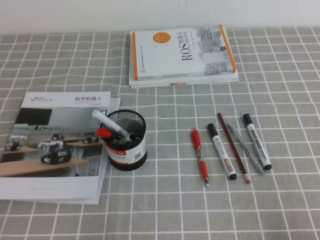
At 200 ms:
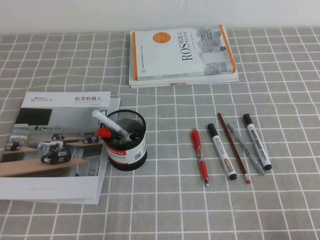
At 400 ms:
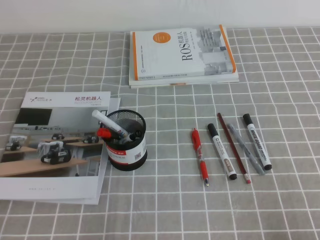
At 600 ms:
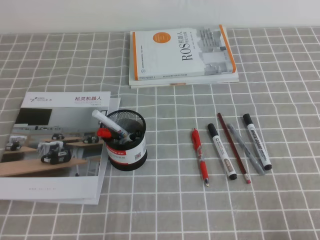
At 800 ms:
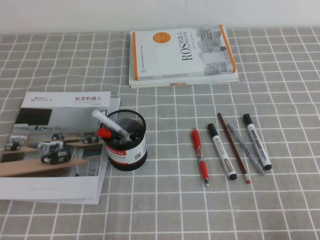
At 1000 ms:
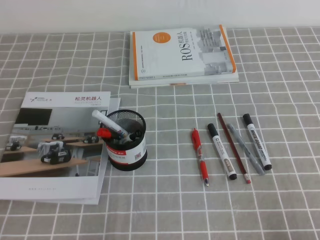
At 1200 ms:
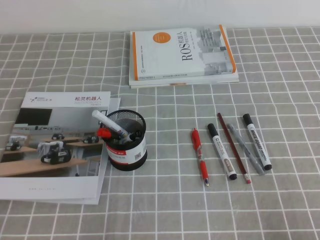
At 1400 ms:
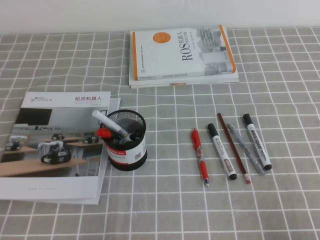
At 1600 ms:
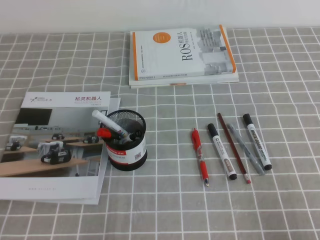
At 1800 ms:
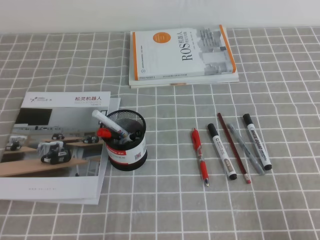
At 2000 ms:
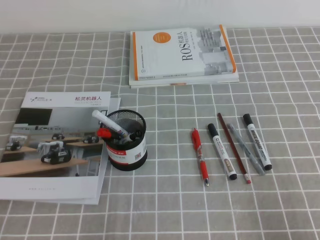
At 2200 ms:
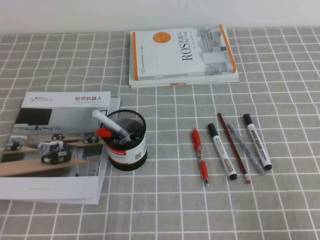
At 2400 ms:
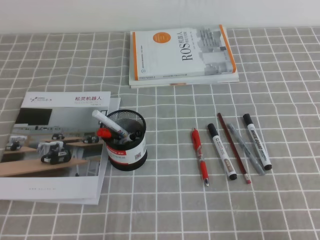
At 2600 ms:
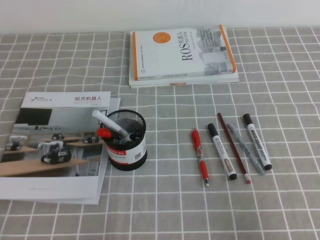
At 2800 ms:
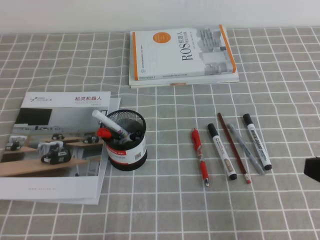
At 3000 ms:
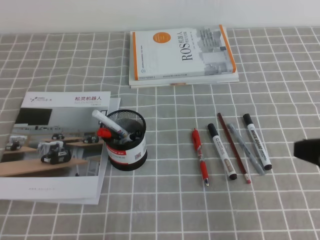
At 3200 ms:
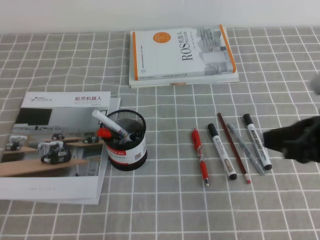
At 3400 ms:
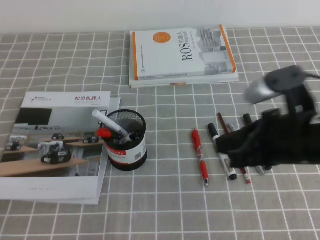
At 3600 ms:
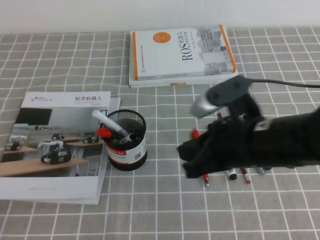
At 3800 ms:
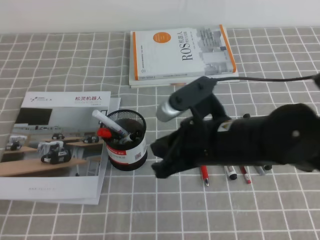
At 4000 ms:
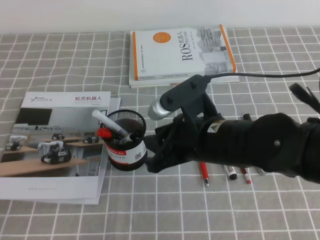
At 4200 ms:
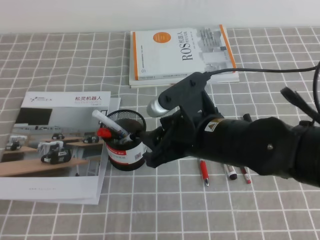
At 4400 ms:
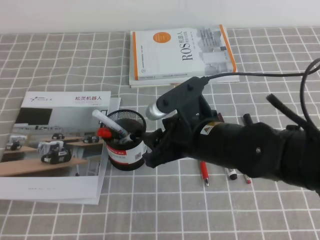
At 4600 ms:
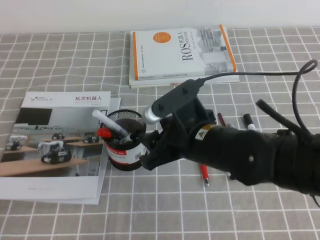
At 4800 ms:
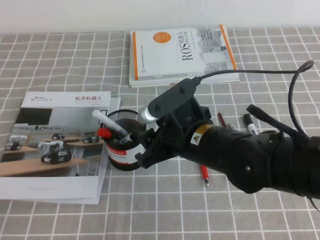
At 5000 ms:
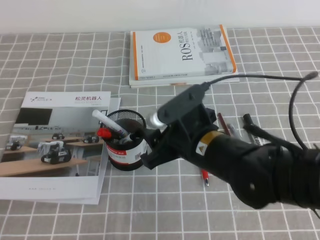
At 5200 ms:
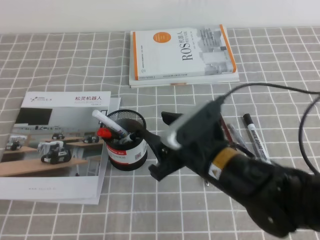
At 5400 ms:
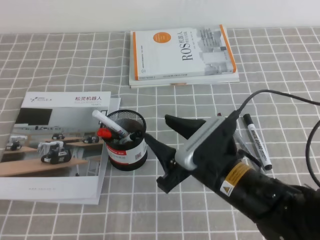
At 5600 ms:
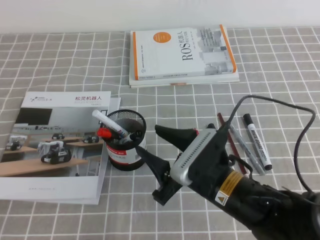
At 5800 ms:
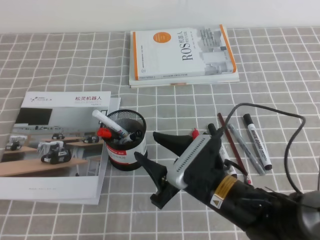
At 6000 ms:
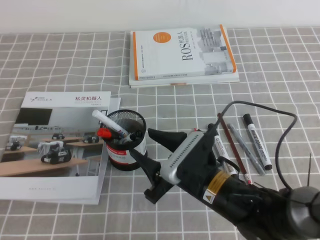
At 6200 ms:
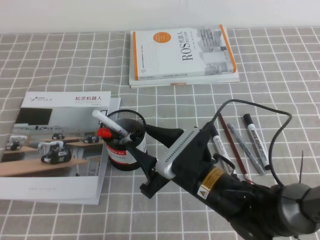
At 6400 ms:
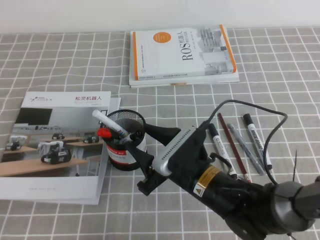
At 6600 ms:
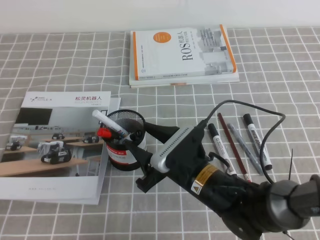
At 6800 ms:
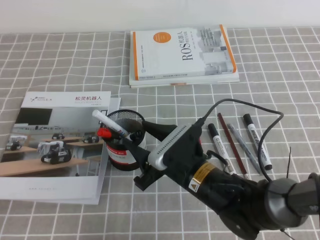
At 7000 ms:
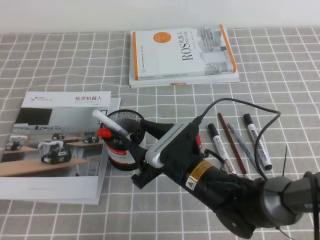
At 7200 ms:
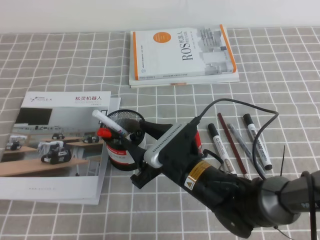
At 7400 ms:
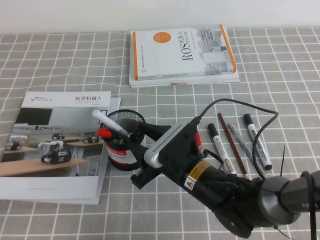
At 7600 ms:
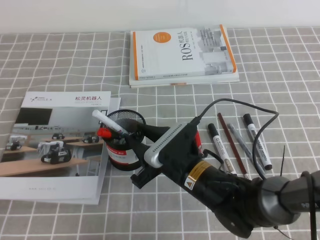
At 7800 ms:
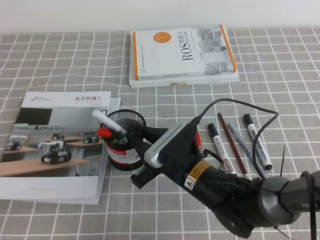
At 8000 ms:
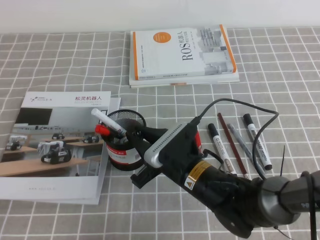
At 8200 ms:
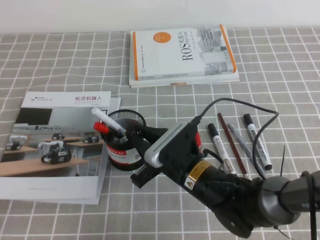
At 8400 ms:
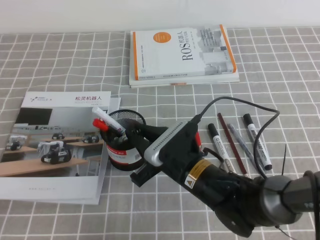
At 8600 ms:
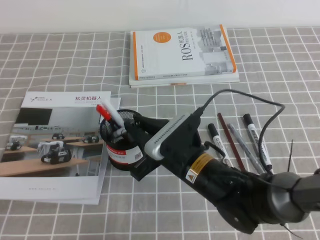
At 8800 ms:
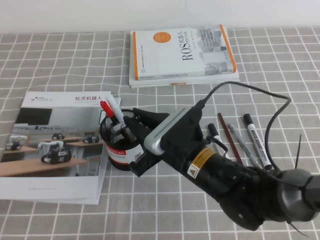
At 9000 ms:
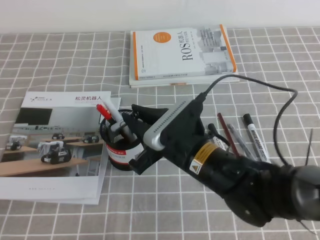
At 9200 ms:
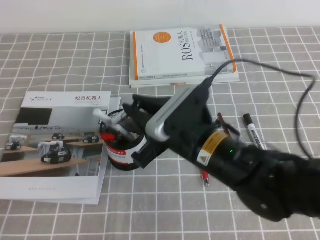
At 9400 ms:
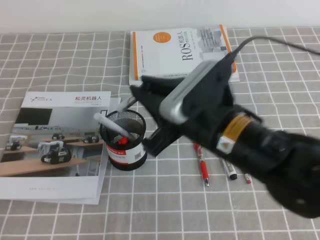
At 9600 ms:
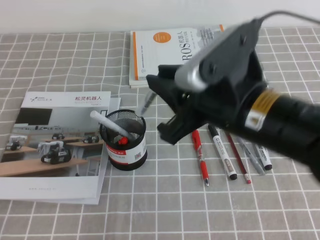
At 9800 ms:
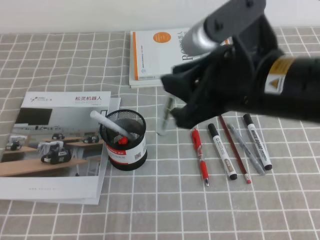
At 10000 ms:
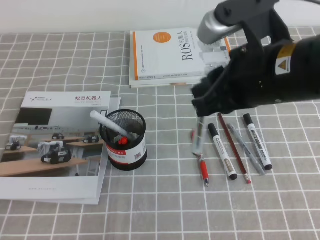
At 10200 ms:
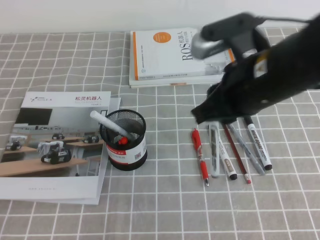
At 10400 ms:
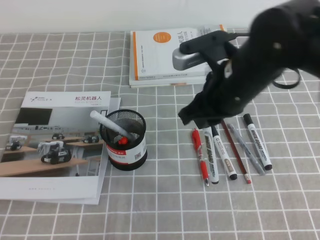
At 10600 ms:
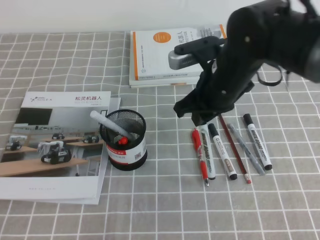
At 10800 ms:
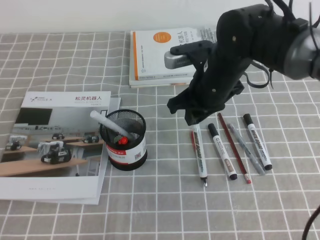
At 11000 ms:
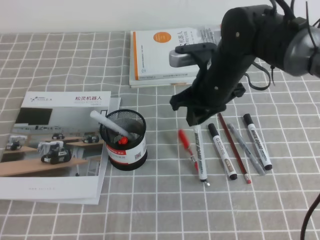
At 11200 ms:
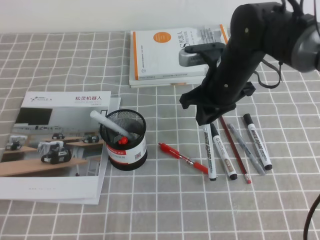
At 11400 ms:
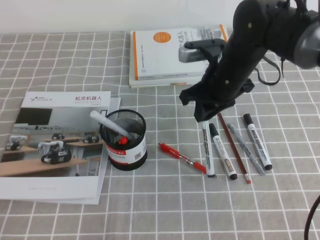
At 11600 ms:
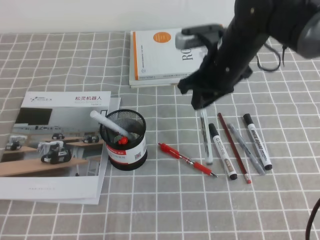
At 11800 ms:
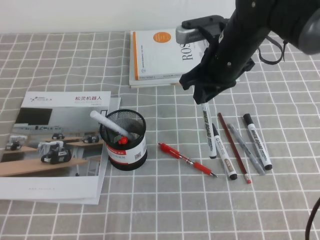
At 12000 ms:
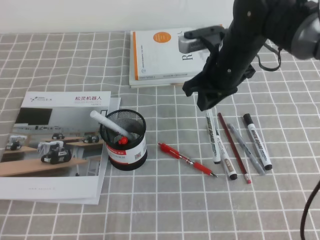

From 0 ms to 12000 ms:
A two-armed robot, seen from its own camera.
From 1600 ms to 3000 ms: The right gripper shifts approximately 15 cm upward and forward.
From 3000 ms to 4400 ms: The right gripper moves to the left and forward, approximately 20 cm, and opens its fingers.
From 4400 ms to 6000 ms: The right gripper is displaced downward by some 10 cm.
From 6000 ms to 7600 ms: The right gripper closes its fingers.
From 7600 ms to 9000 ms: The right gripper goes roughly 5 cm upward, and closes.
From 9000 ms to 10400 ms: The right gripper heads upward, to the right and forward, covering some 15 cm.
From 10400 ms to 12000 ms: The right gripper is displaced forward by approximately 10 cm.

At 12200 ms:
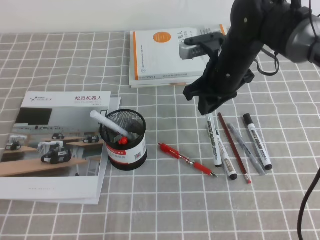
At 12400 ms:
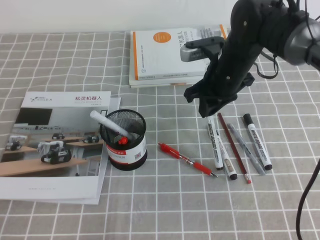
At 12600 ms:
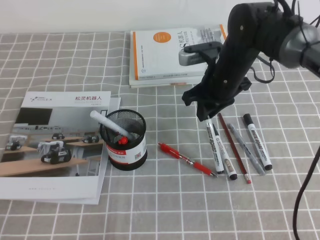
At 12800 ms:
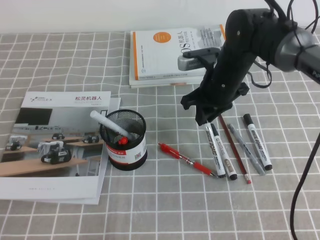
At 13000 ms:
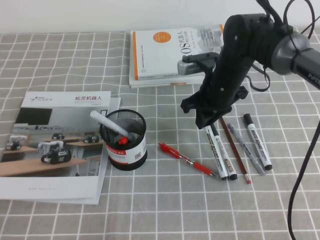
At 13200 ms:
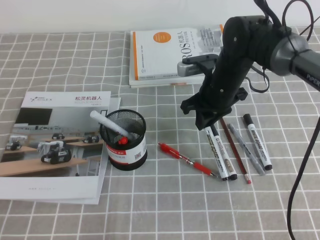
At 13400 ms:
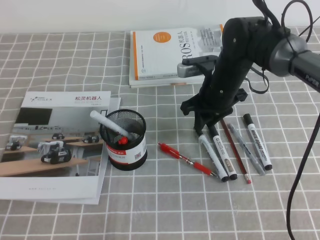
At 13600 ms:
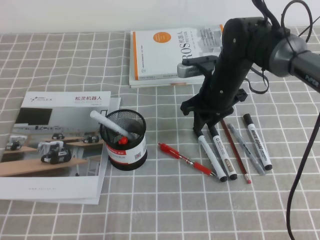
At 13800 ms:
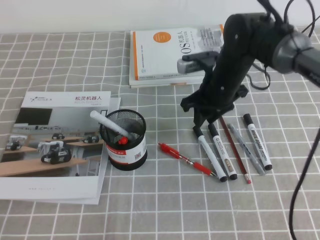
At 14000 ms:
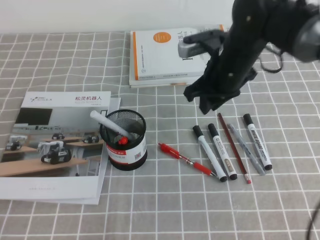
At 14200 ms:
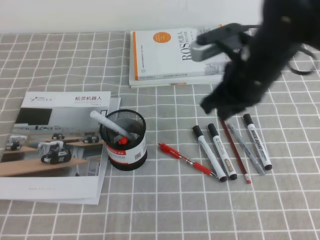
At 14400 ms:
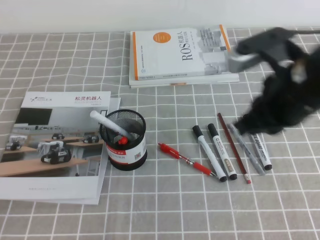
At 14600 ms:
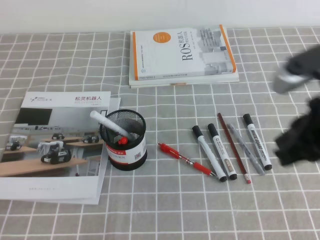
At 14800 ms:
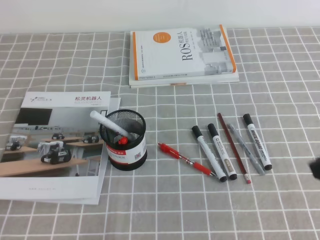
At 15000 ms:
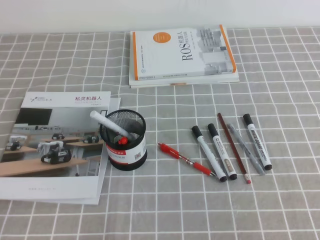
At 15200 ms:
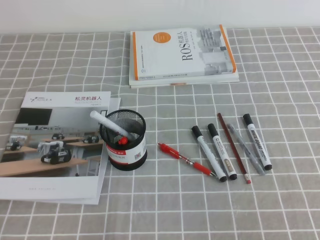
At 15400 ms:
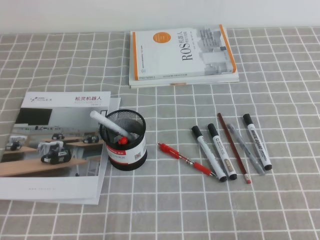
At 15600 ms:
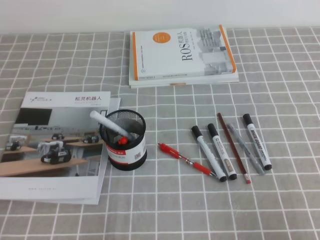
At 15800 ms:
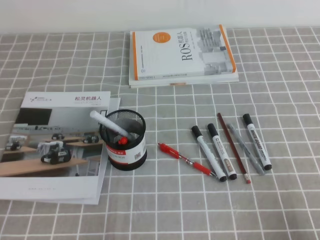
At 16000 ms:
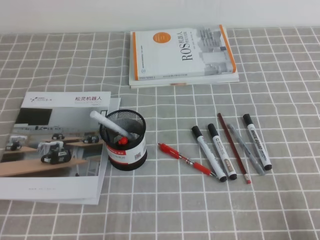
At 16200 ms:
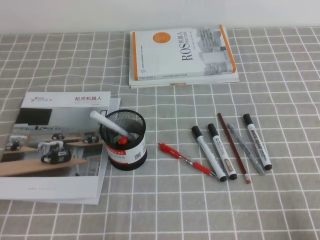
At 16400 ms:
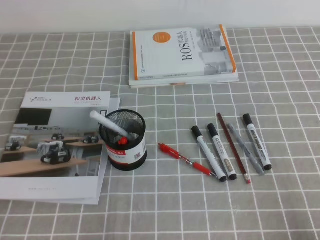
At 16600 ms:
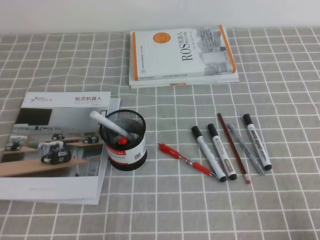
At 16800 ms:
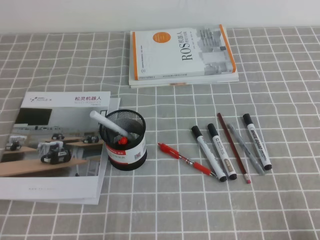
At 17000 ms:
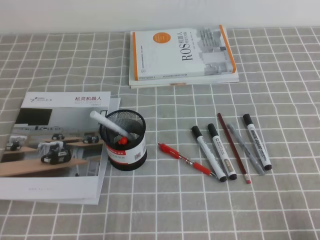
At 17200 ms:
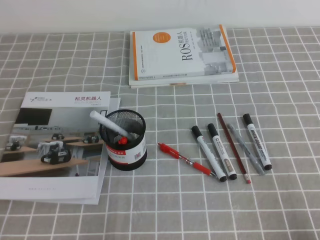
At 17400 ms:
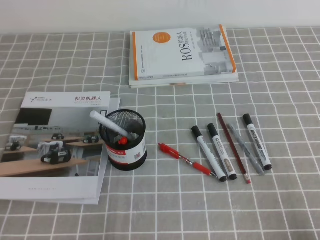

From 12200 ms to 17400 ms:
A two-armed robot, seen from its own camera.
Step, from 12200 ms to 17400 ms: Pick up the pen from the pen holder.
From 12200 ms to 14000 ms: There are only small adjustments of the grippers.
From 14000 ms to 15600 ms: The right gripper moves backward and to the right, some 35 cm.
